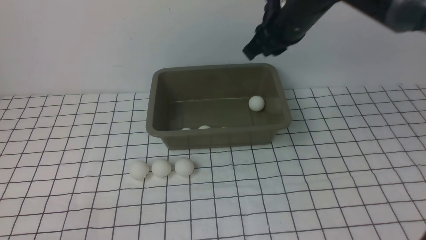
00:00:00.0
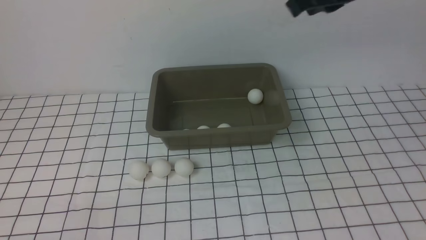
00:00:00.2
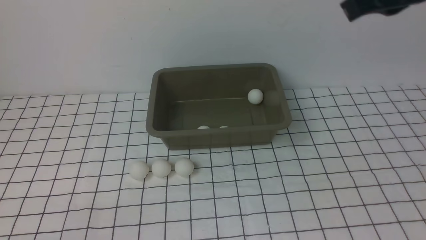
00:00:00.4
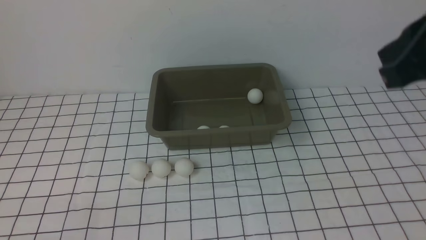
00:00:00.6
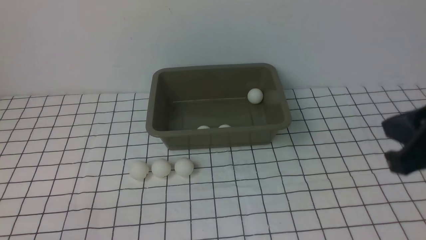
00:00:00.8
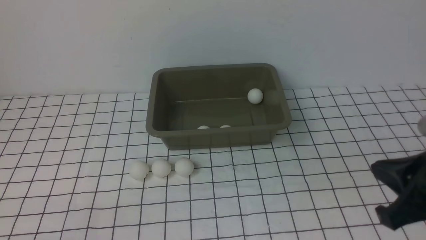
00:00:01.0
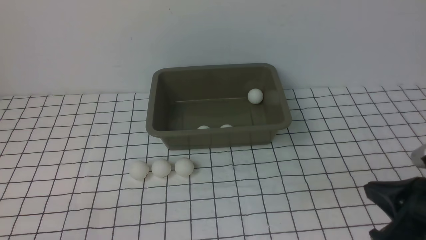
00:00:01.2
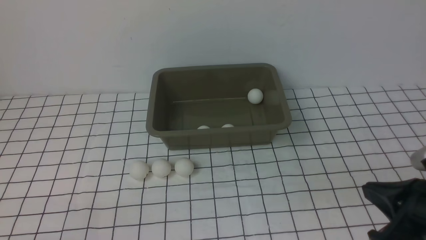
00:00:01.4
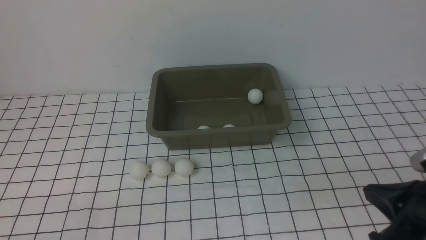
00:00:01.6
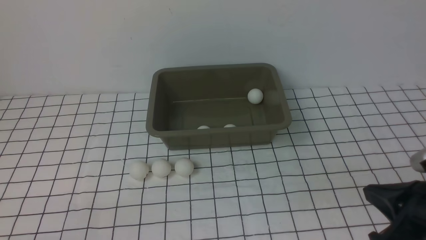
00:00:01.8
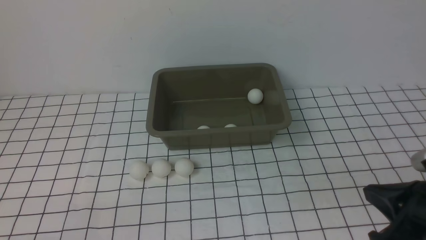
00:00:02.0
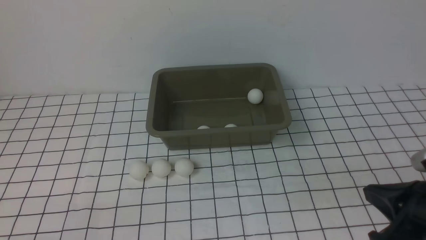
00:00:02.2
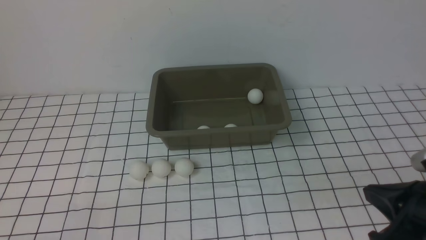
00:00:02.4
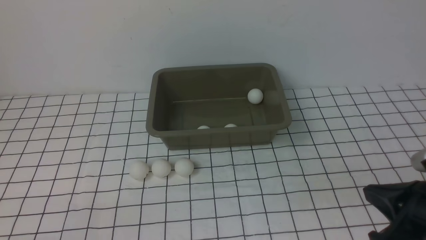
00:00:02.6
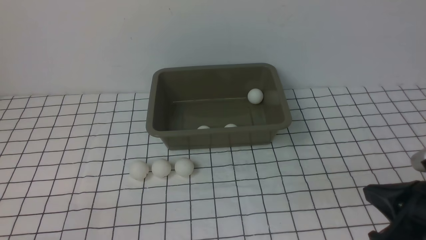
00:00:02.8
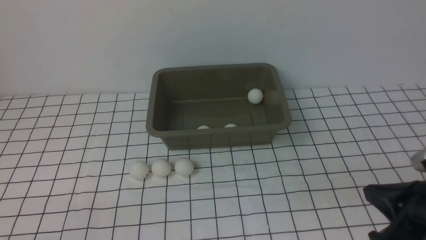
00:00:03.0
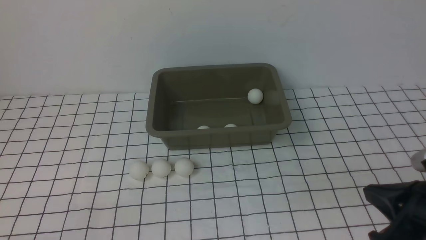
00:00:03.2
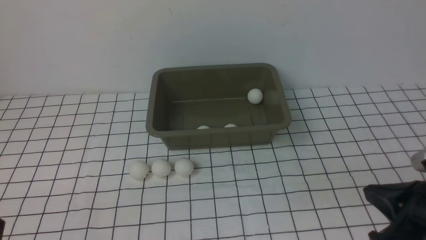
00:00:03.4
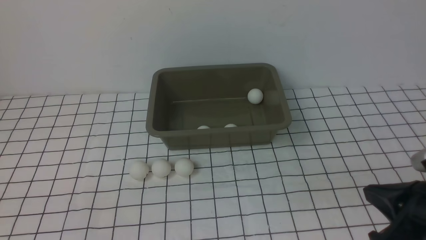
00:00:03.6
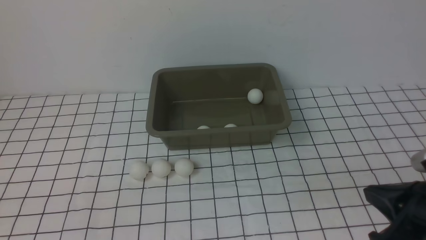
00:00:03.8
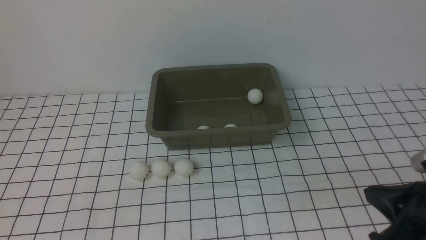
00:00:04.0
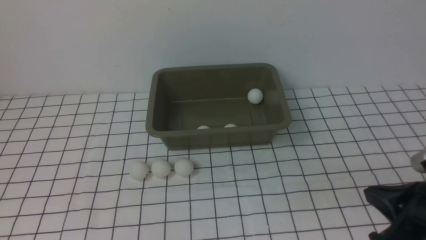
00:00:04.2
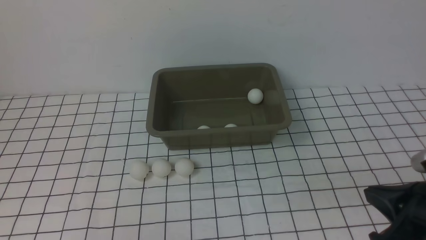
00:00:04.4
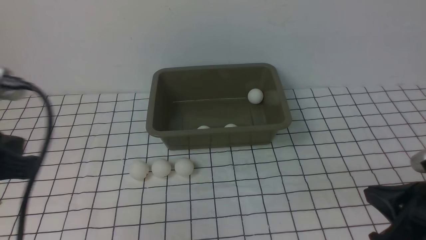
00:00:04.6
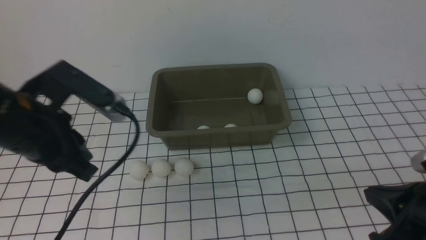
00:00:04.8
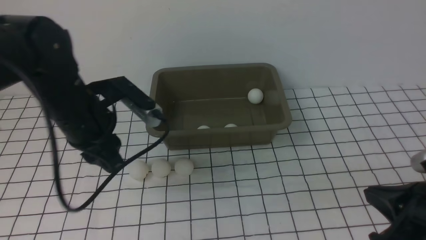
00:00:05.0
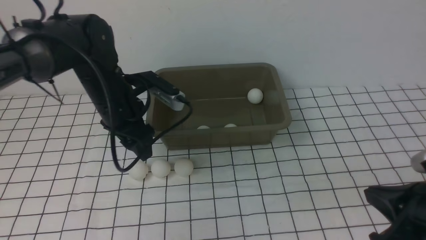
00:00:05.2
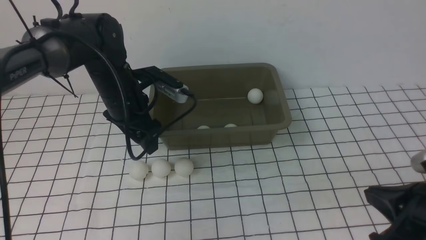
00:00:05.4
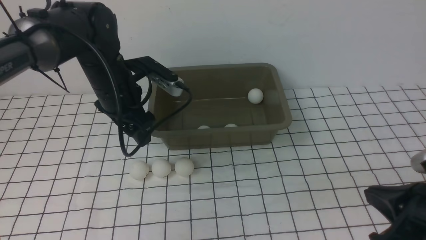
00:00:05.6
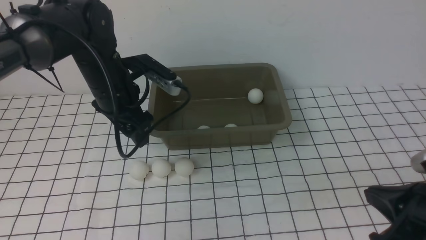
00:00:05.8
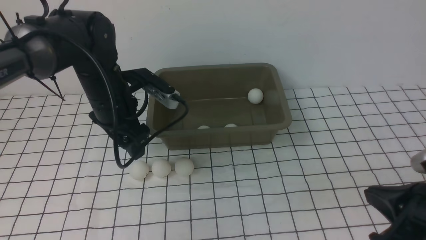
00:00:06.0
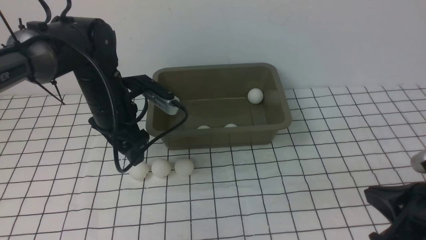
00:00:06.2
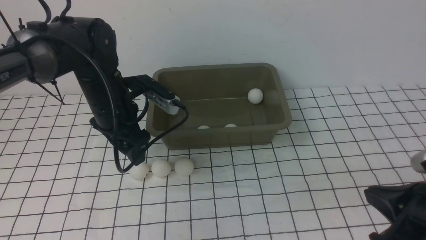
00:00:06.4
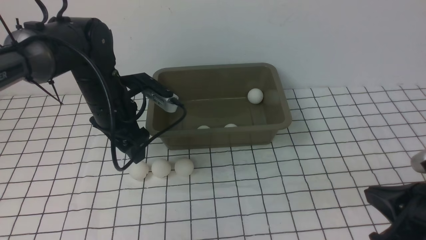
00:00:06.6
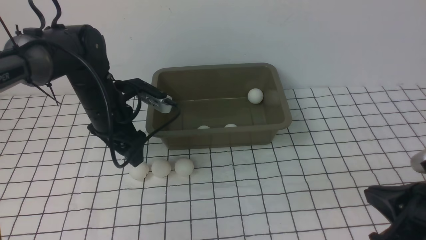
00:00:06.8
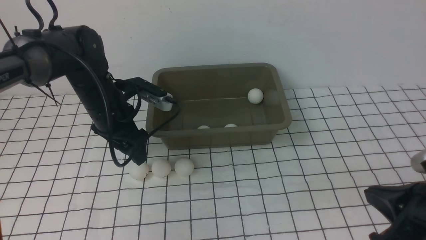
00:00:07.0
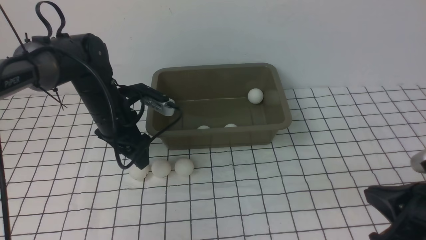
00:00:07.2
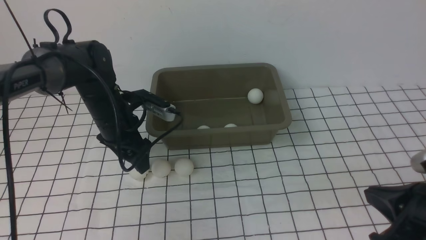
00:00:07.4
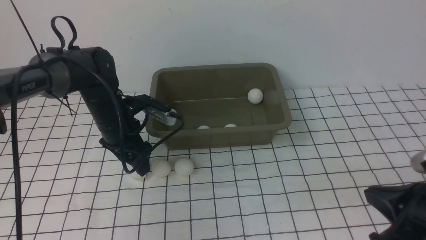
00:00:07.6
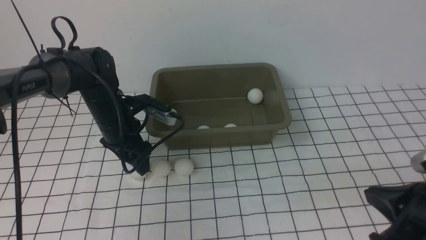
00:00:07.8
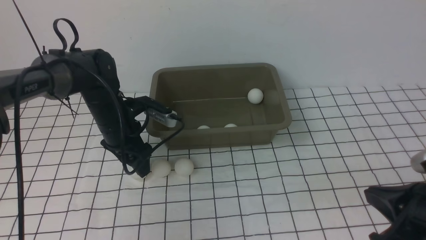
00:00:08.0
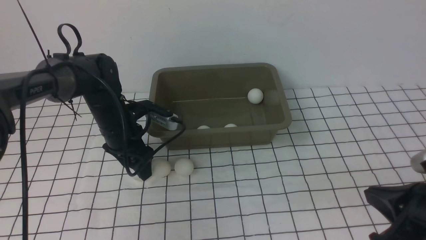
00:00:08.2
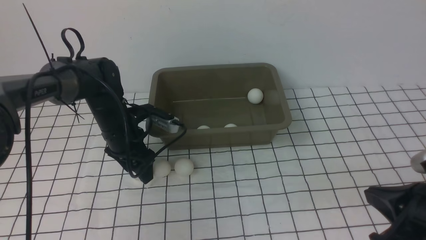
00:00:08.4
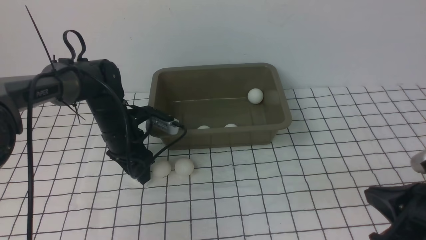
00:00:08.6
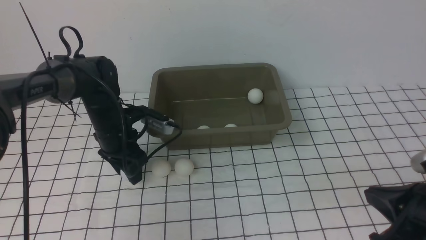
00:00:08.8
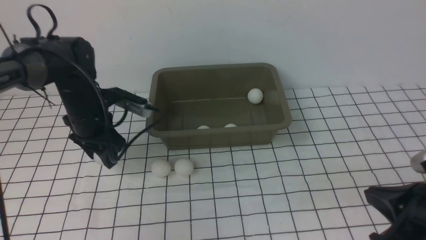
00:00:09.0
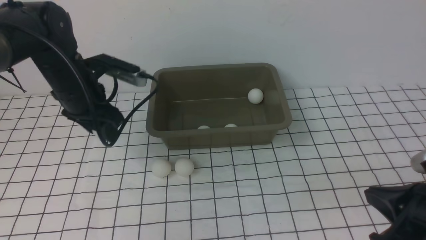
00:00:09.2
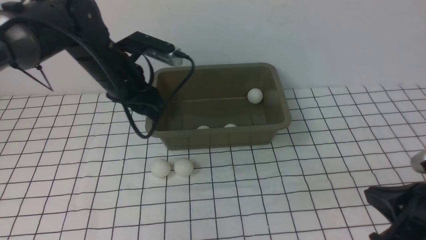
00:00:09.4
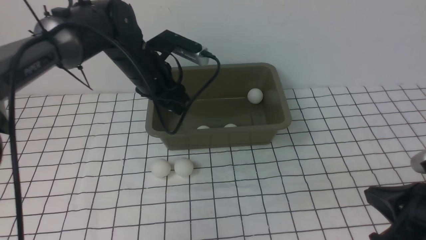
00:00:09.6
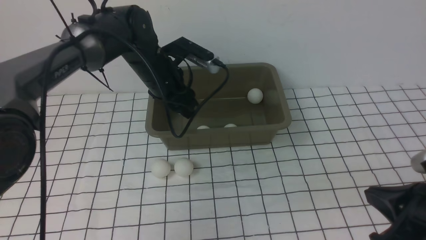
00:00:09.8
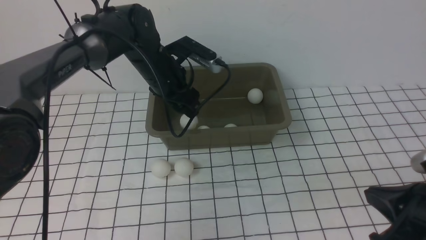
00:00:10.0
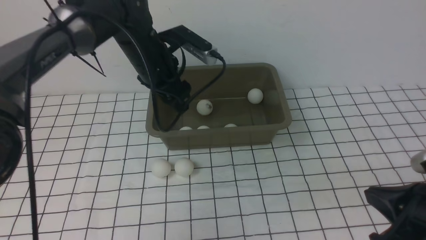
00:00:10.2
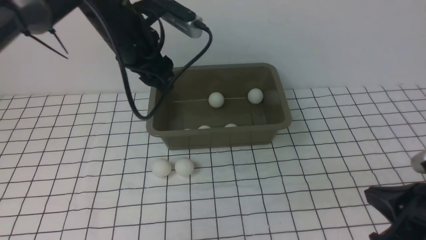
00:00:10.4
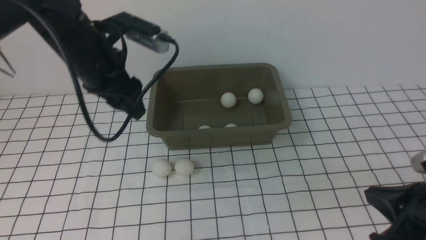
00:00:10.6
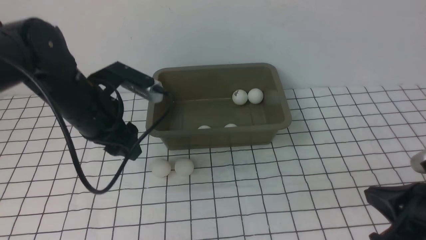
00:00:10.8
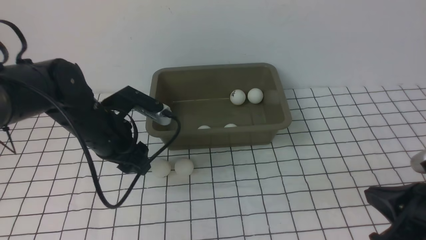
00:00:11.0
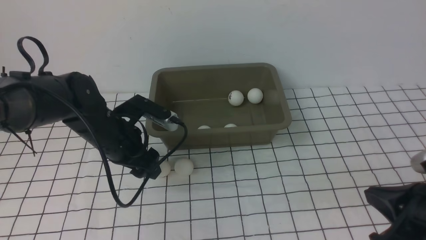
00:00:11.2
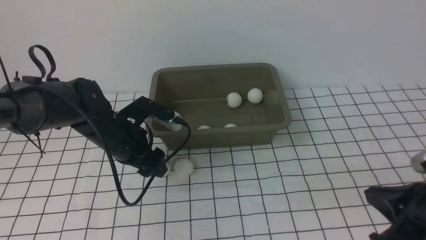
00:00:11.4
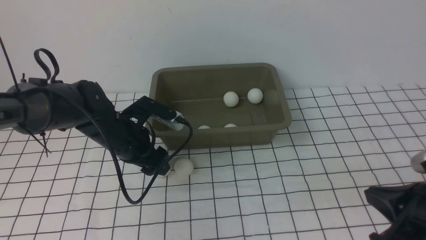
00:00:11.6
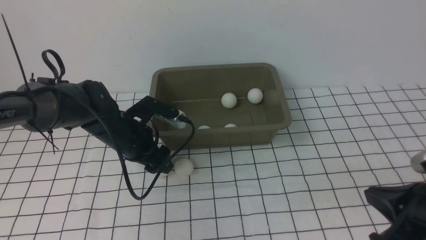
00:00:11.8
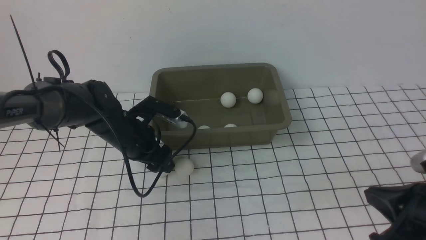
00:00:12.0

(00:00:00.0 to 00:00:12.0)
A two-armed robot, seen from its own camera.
Step, 00:00:00.0 - 00:00:09.0: use the left arm to clamp the table tennis ball closest to it.
Step, 00:00:09.2 - 00:00:10.0: use the left arm to put the table tennis ball into the box.
00:00:00.0 - 00:00:01.6: The right gripper moves backward and to the right, about 30 cm, and closes up.
00:00:01.6 - 00:00:03.0: Neither gripper changes place.
00:00:04.4 - 00:00:06.0: The left gripper is displaced forward by about 25 cm, and opens up.
00:00:06.0 - 00:00:07.6: The left gripper heads downward, covering approximately 5 cm.
00:00:07.6 - 00:00:09.0: There are only small adjustments of the grippers.
00:00:09.0 - 00:00:10.4: The left gripper is displaced upward and to the right by about 15 cm.
00:00:10.4 - 00:00:12.0: The left gripper travels downward by about 15 cm.

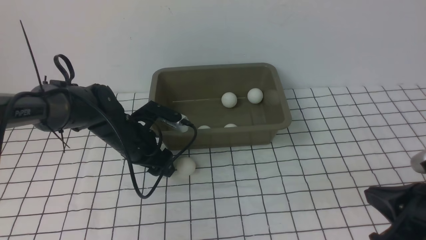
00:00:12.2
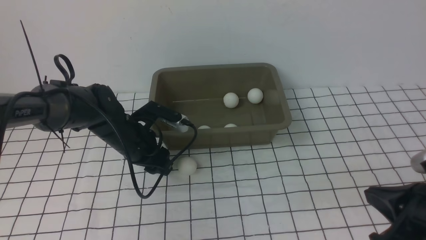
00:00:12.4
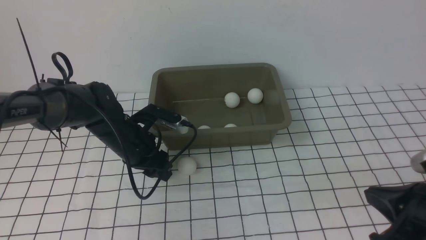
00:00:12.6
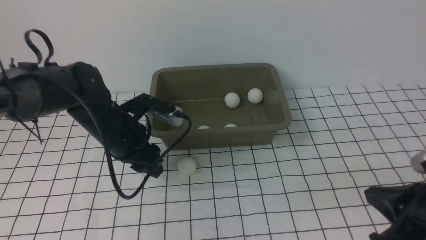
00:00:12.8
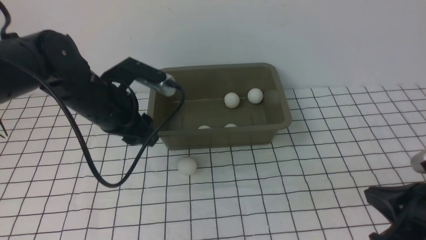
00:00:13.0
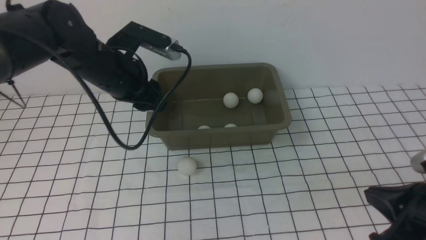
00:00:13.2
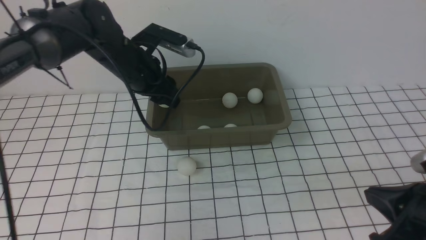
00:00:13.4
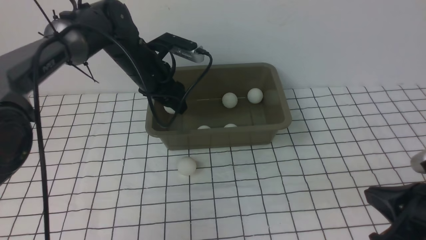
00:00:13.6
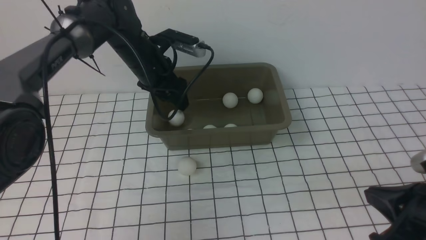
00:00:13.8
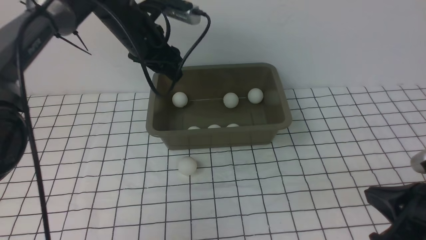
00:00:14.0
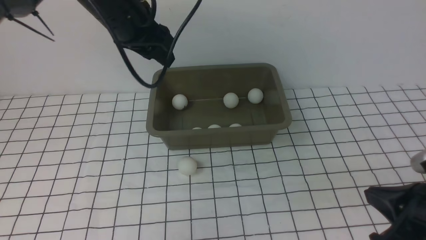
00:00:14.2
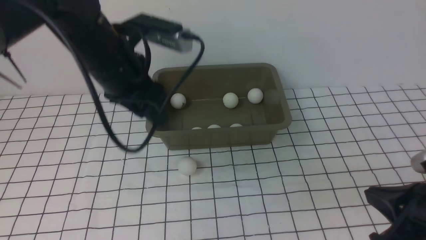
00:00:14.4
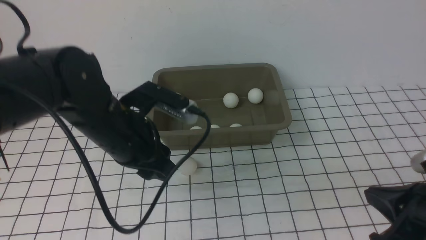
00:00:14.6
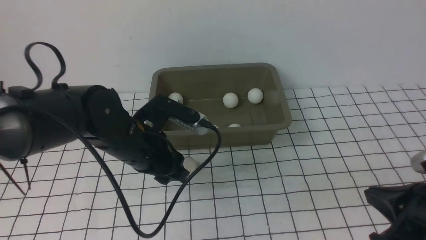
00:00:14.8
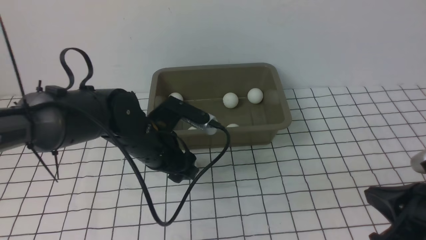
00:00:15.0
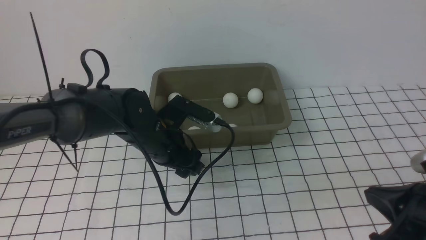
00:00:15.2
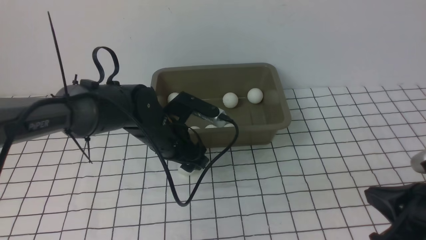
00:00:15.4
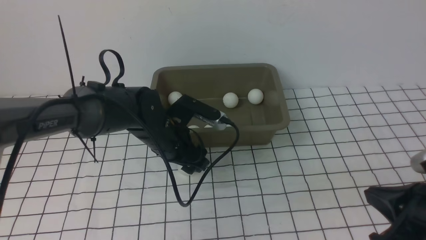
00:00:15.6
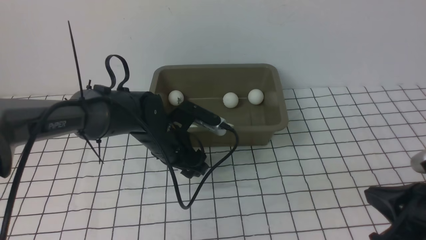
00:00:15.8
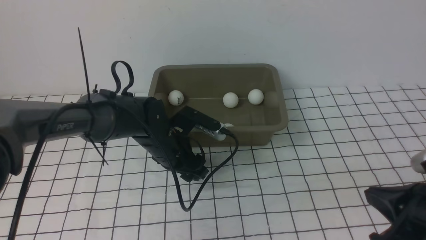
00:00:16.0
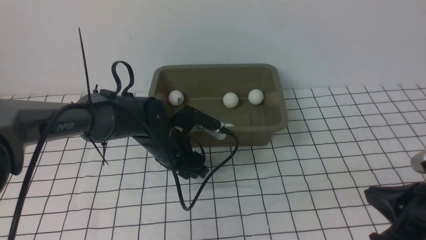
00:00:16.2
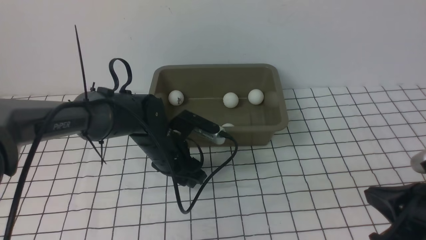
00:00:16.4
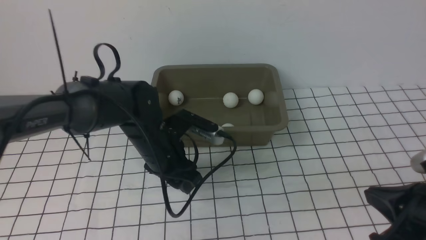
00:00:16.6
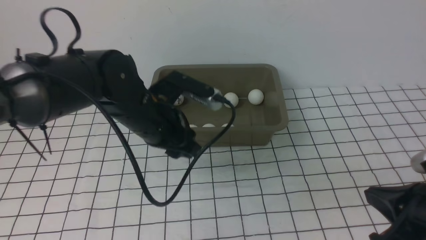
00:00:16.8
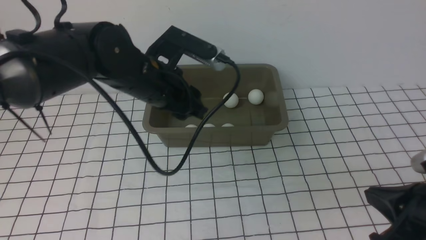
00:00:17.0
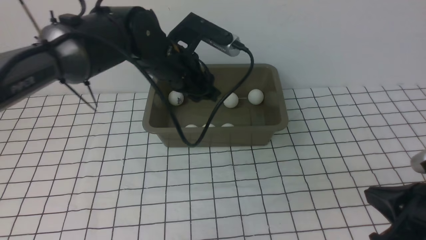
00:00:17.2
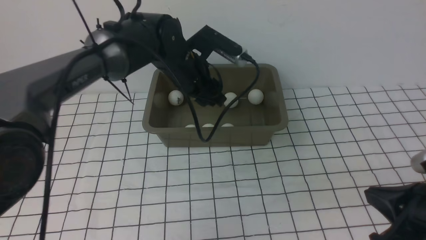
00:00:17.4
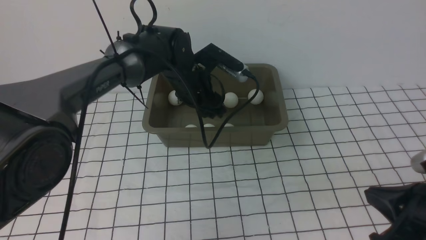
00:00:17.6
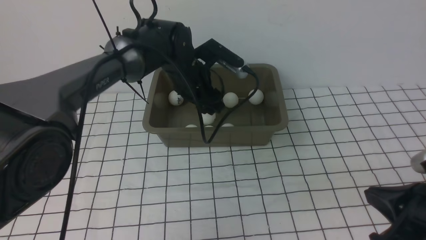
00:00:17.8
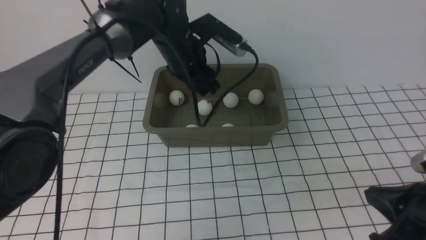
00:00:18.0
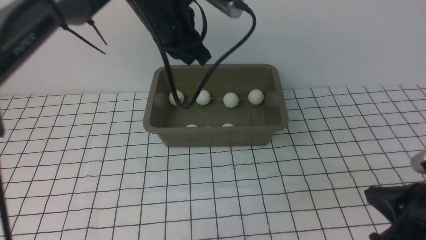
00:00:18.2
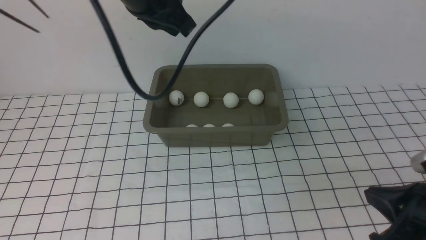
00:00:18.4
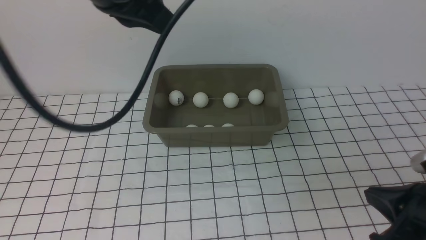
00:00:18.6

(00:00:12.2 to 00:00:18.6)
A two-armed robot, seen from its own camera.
Step, 00:00:13.0 - 00:00:13.8: use the left arm to put the table tennis ball into the box.
Step, 00:00:14.0 - 00:00:16.6: use the left arm to clamp the table tennis ball closest to it.
Step, 00:00:16.8 - 00:00:17.8: use the left arm to put the table tennis ball into the box.
00:00:12.2 - 00:00:13.8: The left gripper is displaced upward and forward by some 15 cm.
00:00:13.8 - 00:00:15.4: The left gripper is displaced backward and downward by about 15 cm.
00:00:15.4 - 00:00:17.0: The left gripper is displaced upward by approximately 10 cm.
00:00:17.0 - 00:00:18.6: The left gripper heads upward, covering about 15 cm, and closes.
